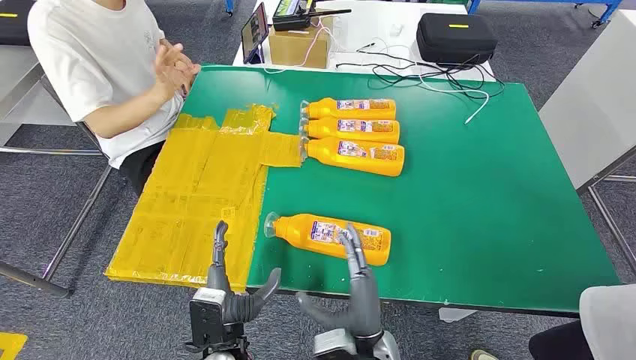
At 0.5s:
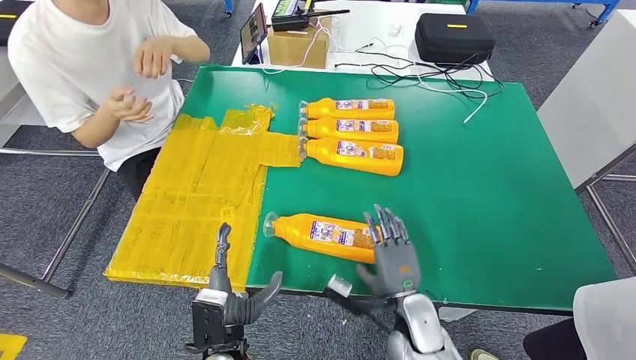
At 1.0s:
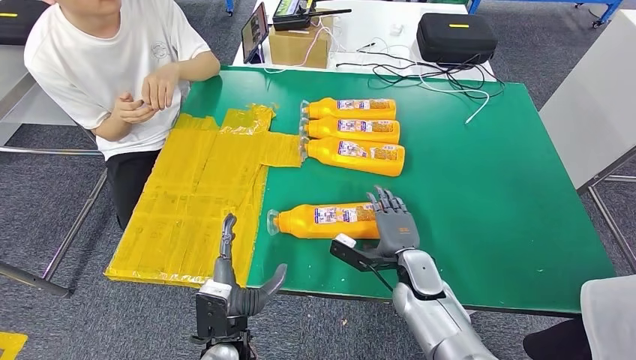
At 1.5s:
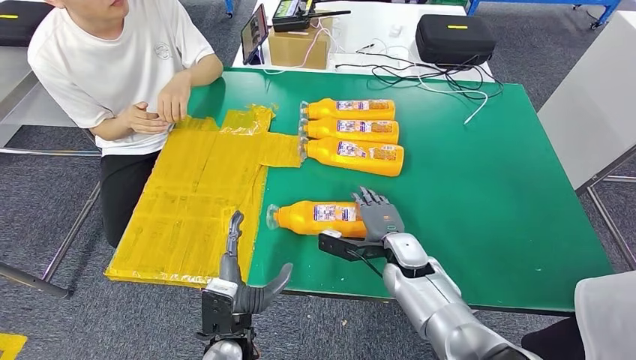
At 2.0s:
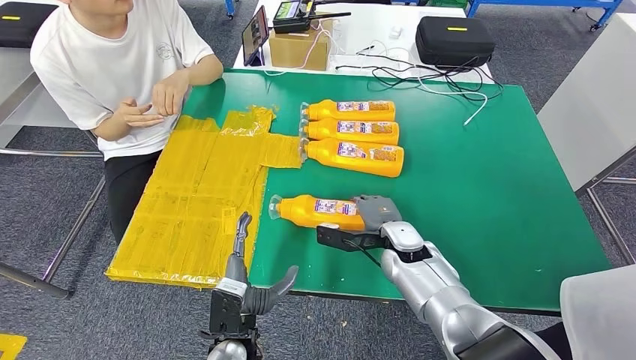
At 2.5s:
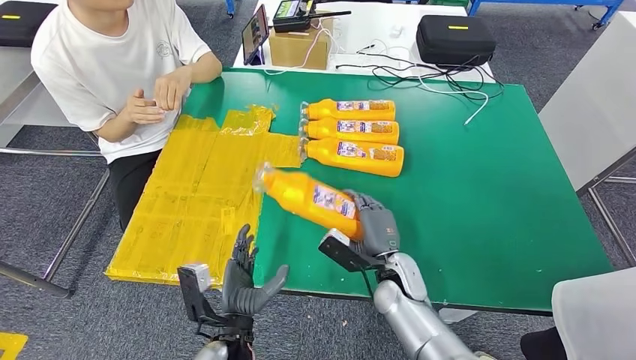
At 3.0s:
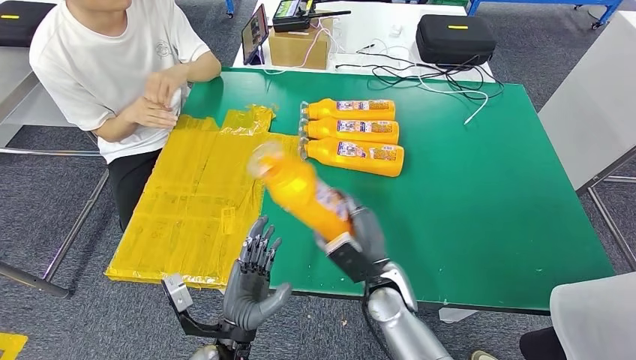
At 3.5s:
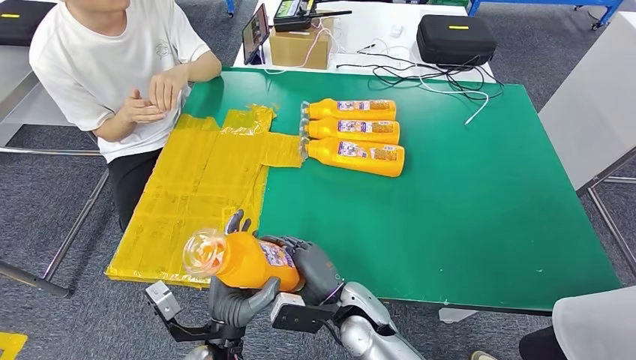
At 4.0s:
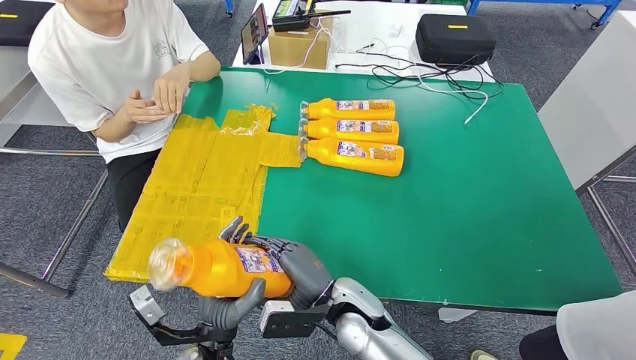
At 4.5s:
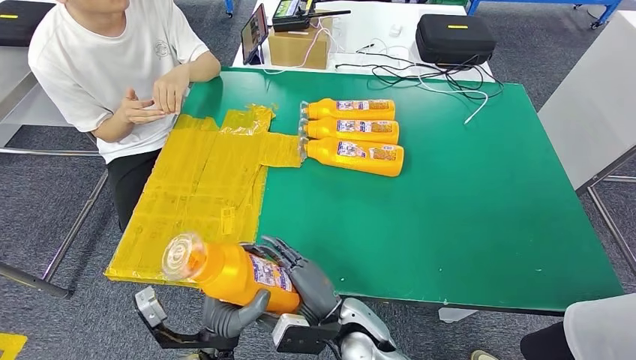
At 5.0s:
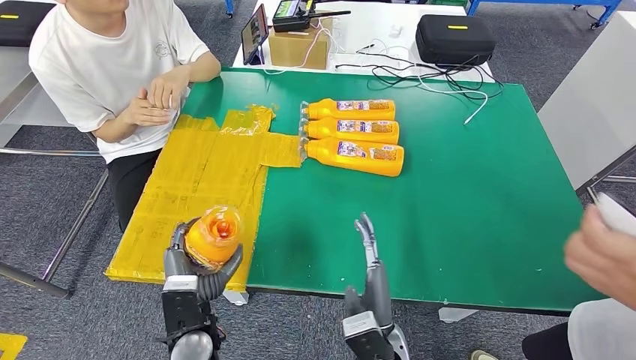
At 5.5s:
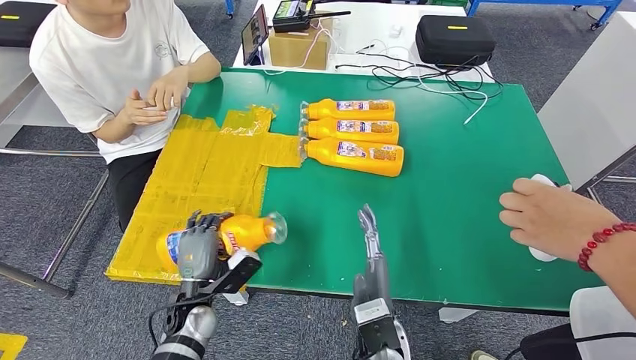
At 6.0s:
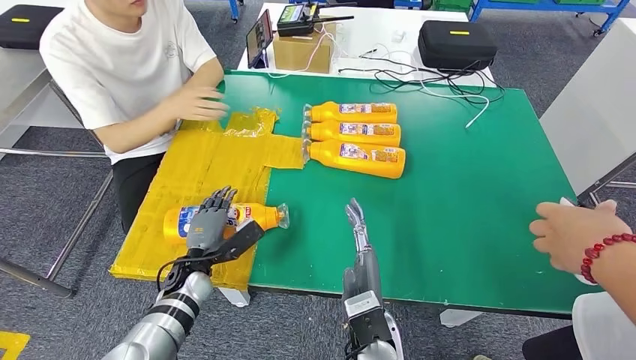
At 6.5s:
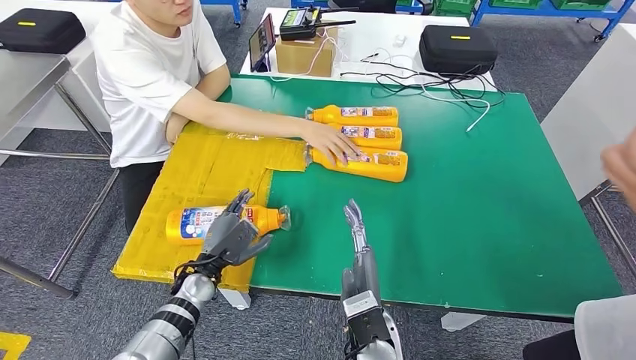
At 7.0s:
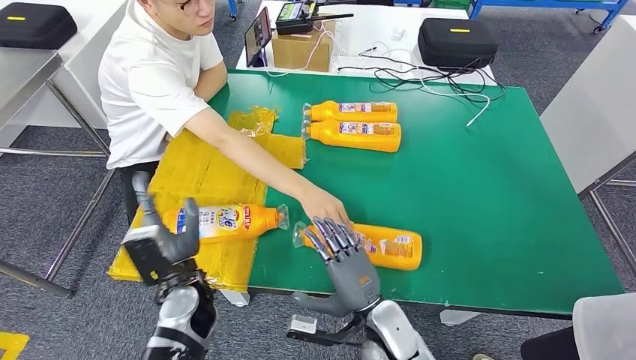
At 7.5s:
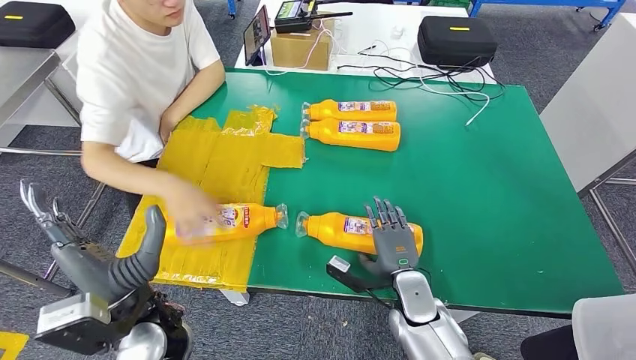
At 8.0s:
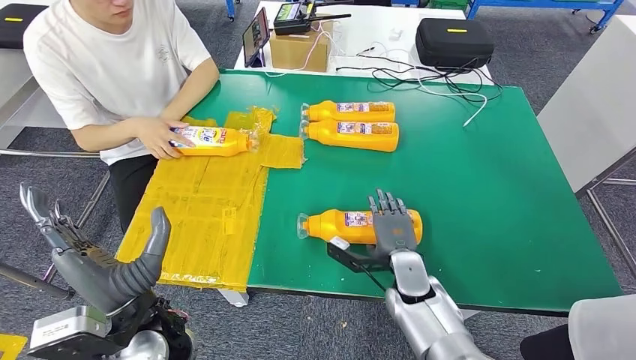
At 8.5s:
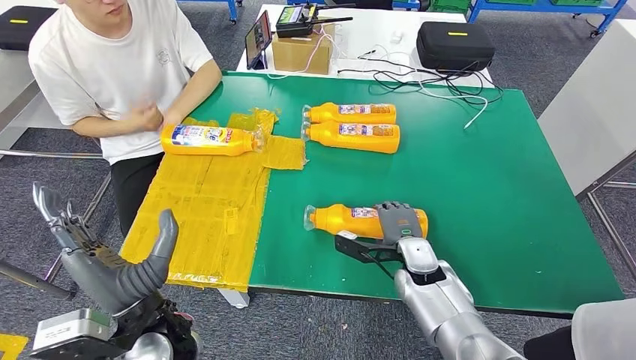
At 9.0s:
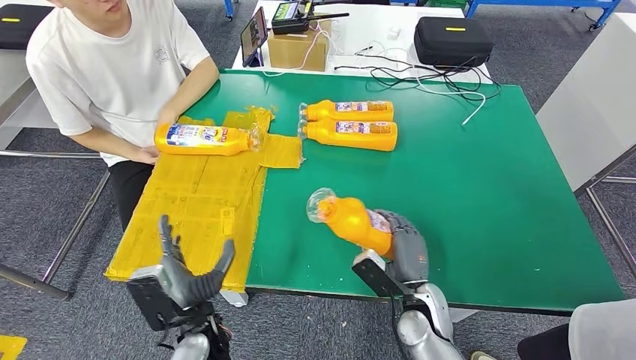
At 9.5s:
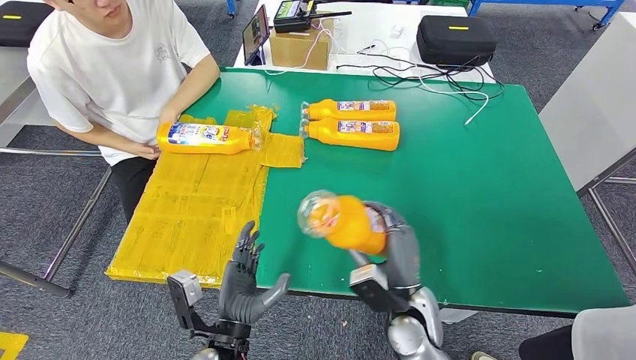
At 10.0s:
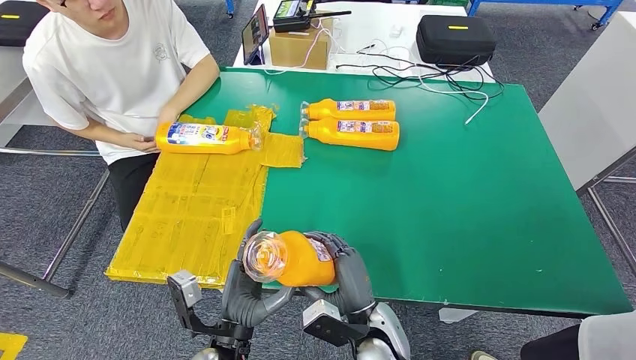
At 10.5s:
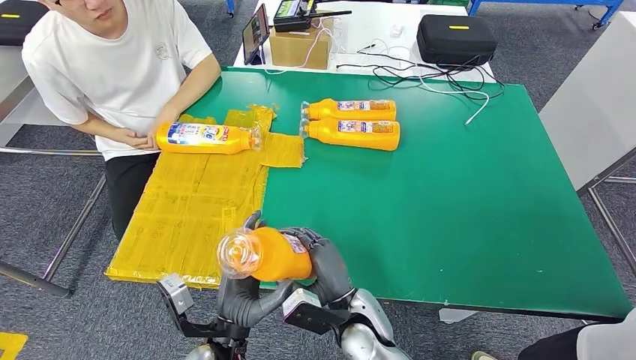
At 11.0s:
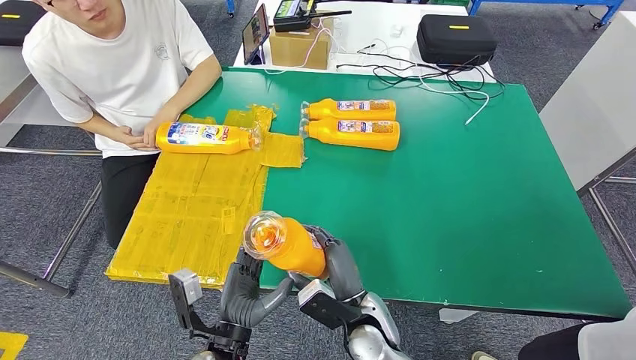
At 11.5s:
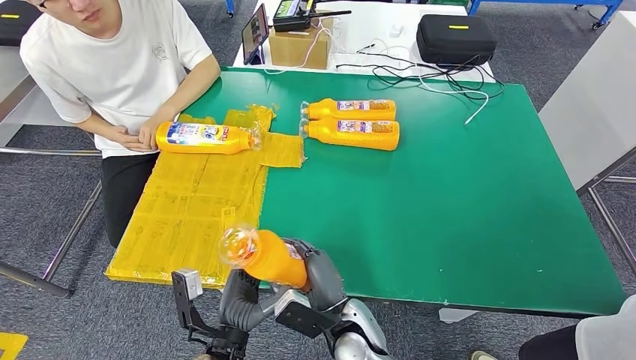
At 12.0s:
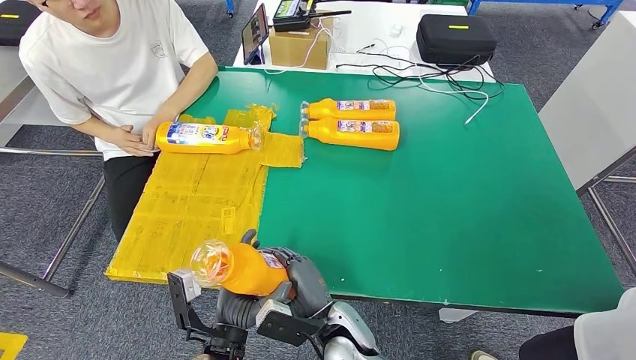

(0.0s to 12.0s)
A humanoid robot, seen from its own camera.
Step, 0.0s - 3.0s: Take the fast-moving consumer goods bottle from the table.
Step, 3.5s - 5.5s: Flip the fast-moving consumer goods bottle to the front side.
Step, 6.0s - 9.0s: Pick up the fast-moving consumer goods bottle from the table.
10.0s - 12.0s: The right hand shifts some 5 cm to the left.

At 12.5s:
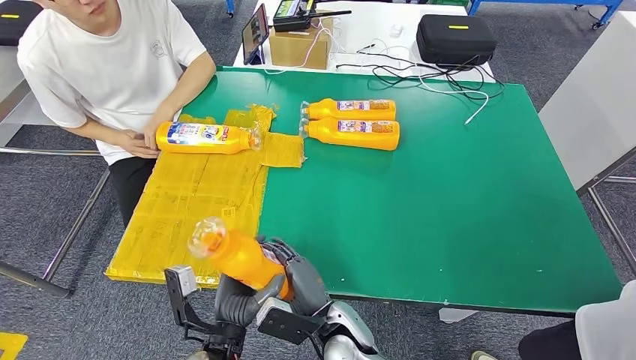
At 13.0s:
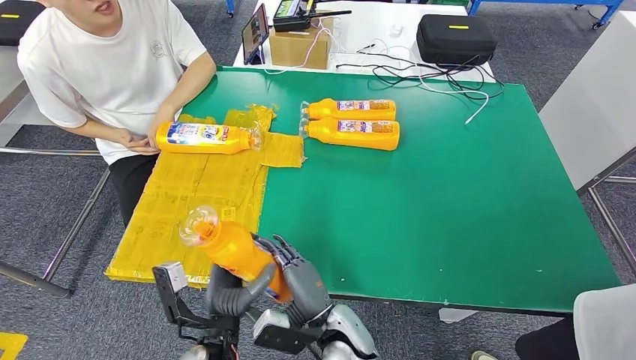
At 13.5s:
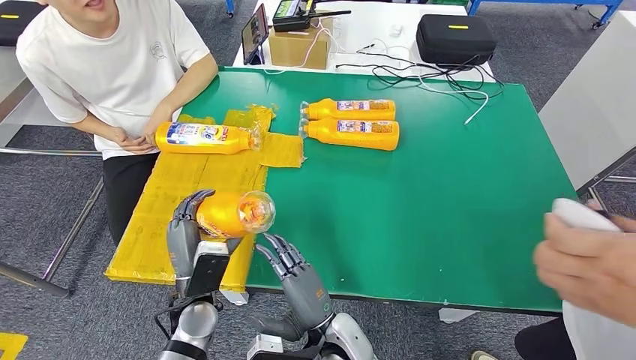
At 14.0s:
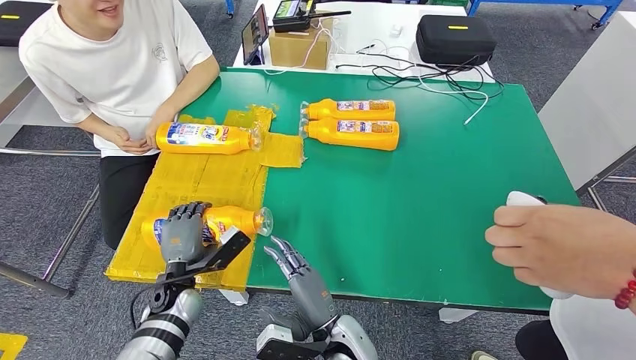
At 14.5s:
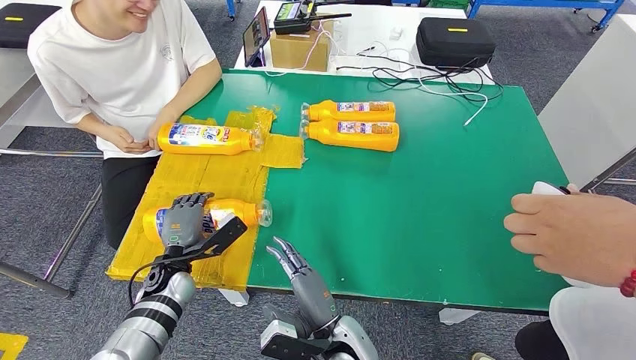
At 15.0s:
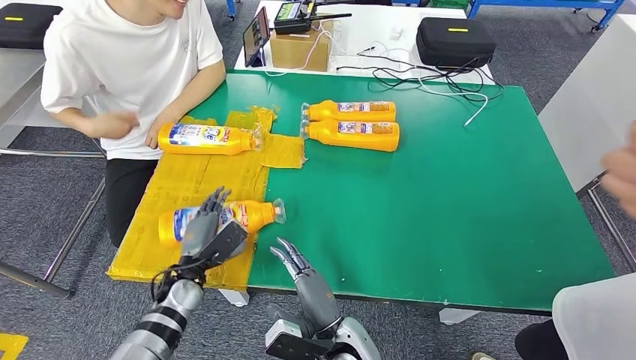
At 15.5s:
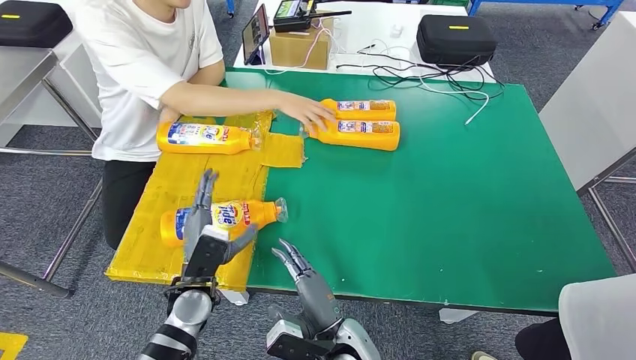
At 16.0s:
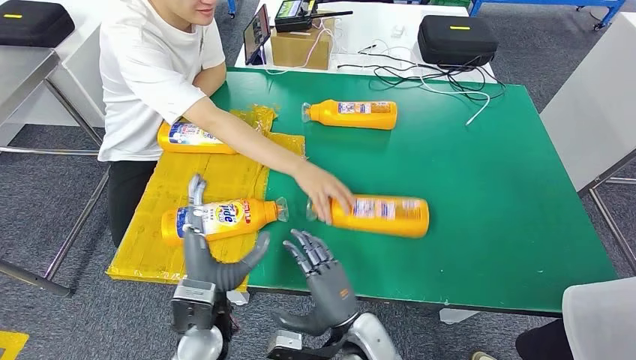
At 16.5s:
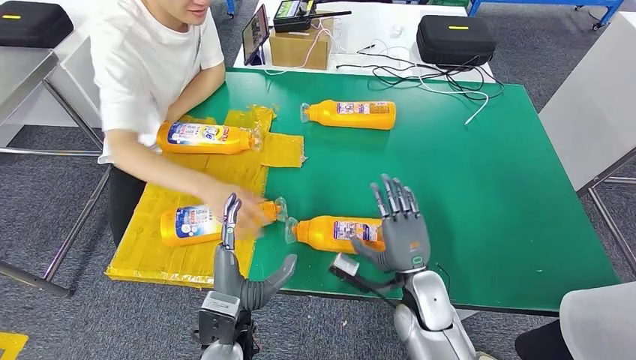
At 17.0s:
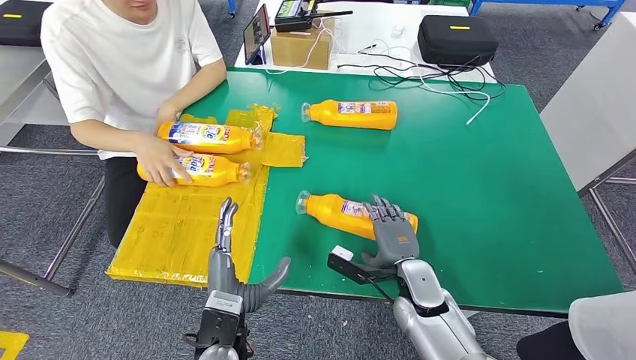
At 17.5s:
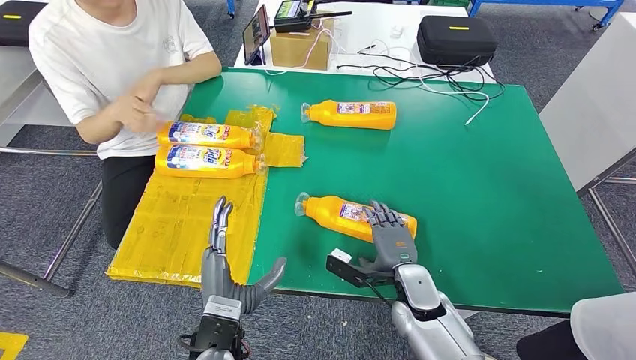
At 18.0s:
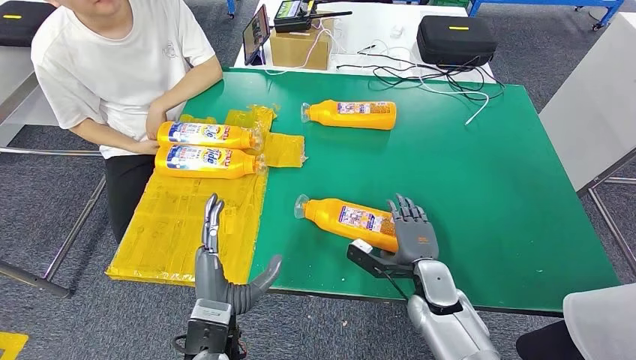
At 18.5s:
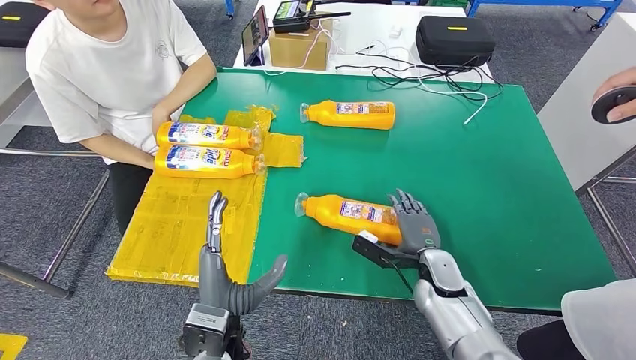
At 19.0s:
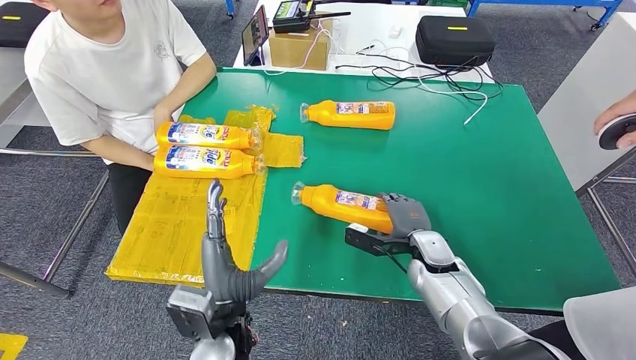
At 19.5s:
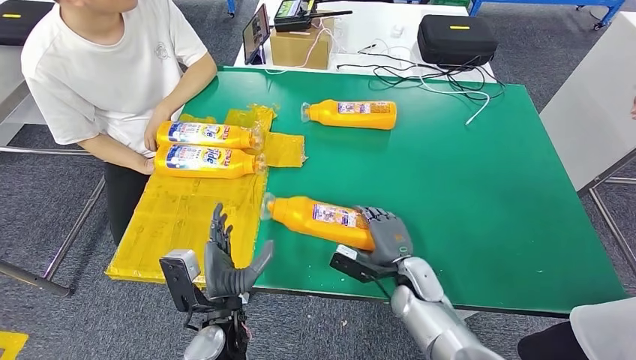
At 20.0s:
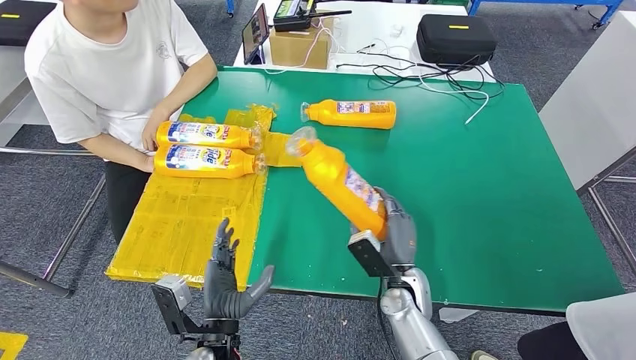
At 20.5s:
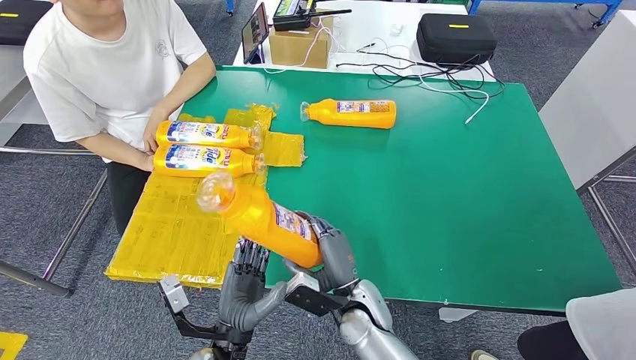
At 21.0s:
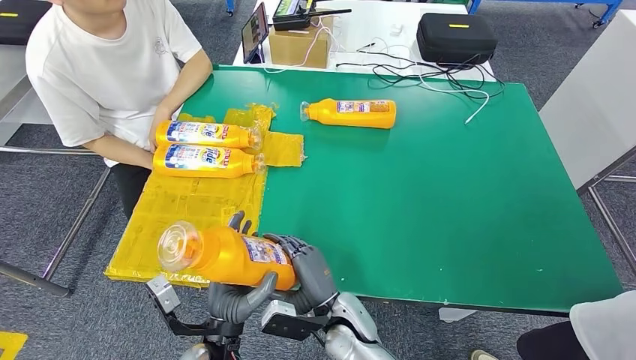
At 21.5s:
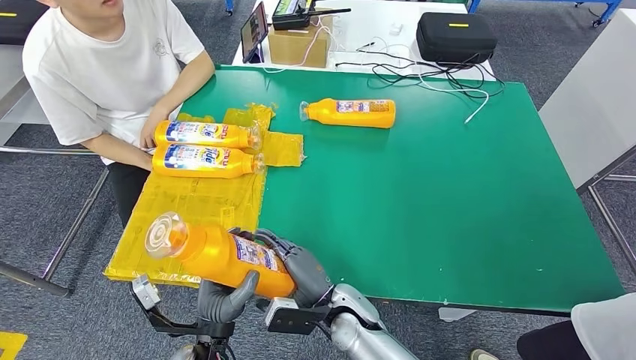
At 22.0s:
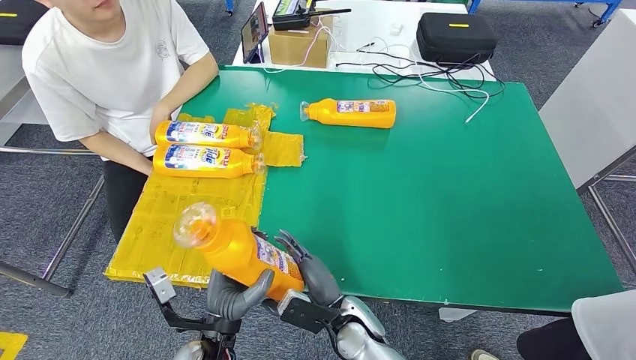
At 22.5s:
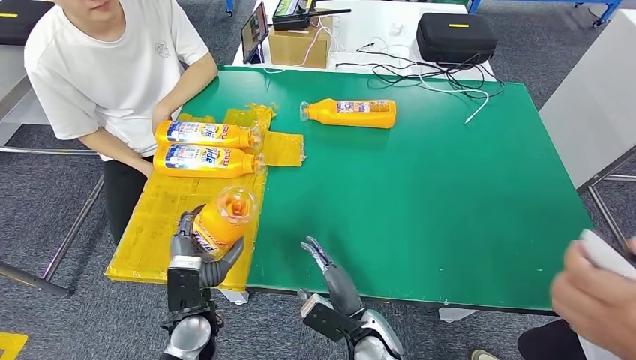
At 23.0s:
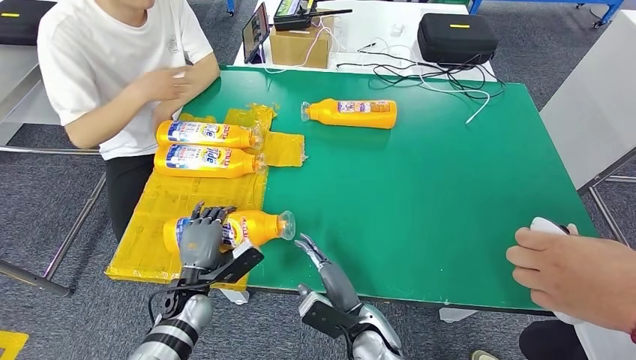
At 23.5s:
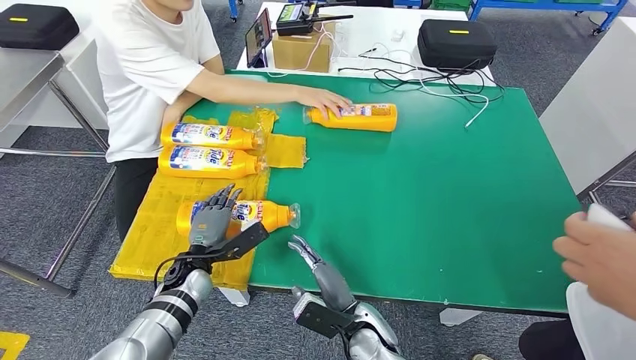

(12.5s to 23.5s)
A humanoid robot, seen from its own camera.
Step, 12.5s - 14.5s: Flip the fast-moving consumer goods bottle to the front side.
Step, 15.0s - 20.0s: Pick up the fast-moving consumer goods bottle from the table.
18.0s - 20.0s: The right hand ends up roughly 5 cm from where it was.
20.0s - 21.5s: The right hand is displaced to the left and backward by about 15 cm.
